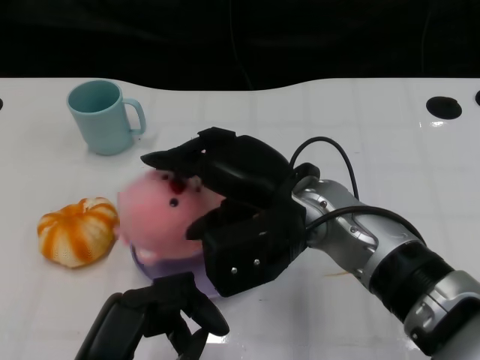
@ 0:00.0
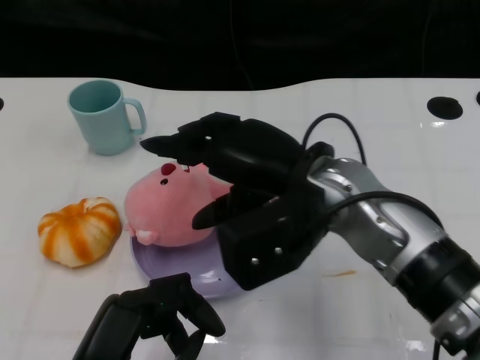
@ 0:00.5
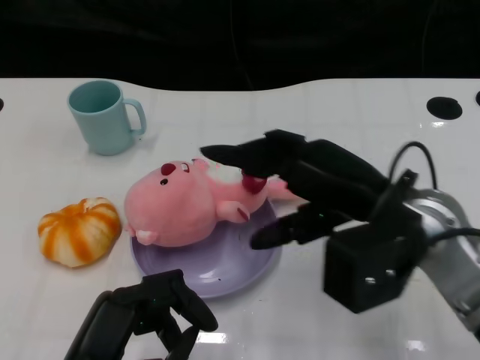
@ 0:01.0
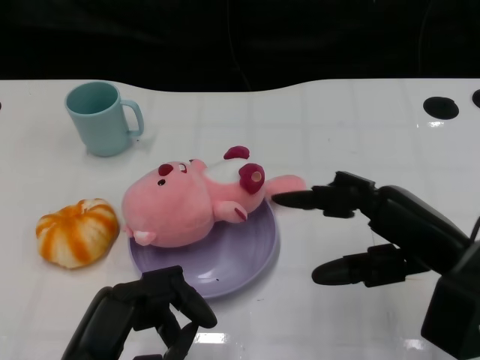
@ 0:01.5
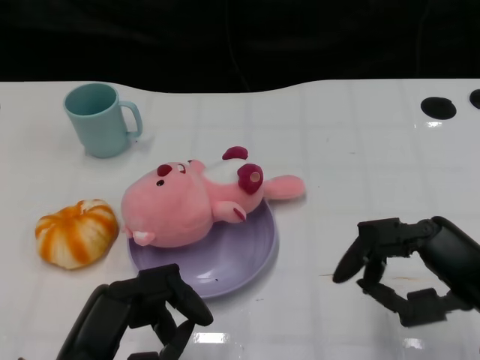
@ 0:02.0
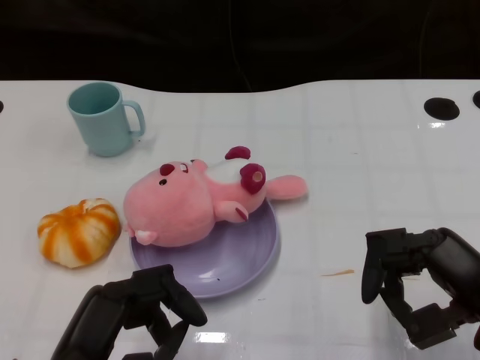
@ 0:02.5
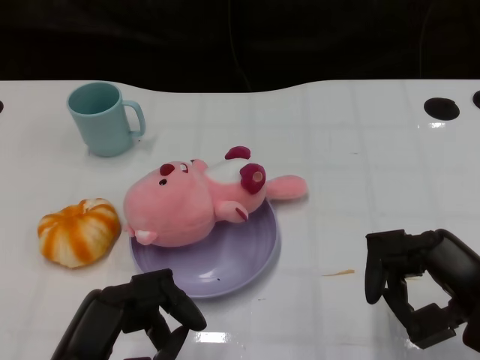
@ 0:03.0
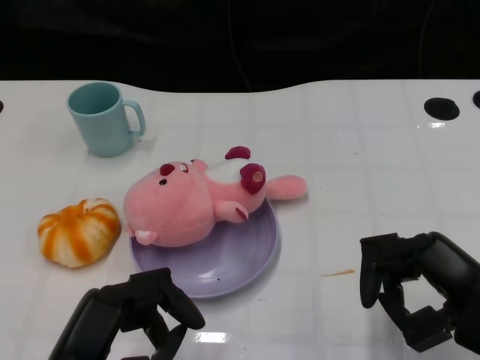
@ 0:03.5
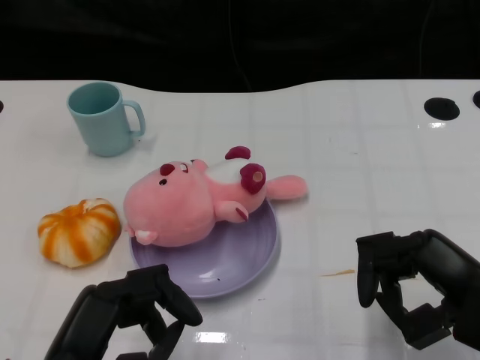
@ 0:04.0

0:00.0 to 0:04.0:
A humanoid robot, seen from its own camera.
Task of the whole recording: Pick up the doll on the other side of the plate and place it into the plate.
0:00.0 to 0:02.0: The right hand heads to the right and backward, covering roughly 20 cm.
0:02.0 to 0:04.0: The hands make only small movements.

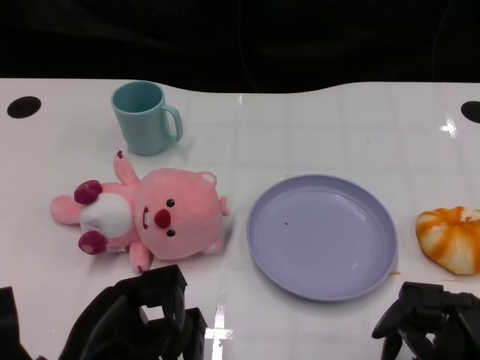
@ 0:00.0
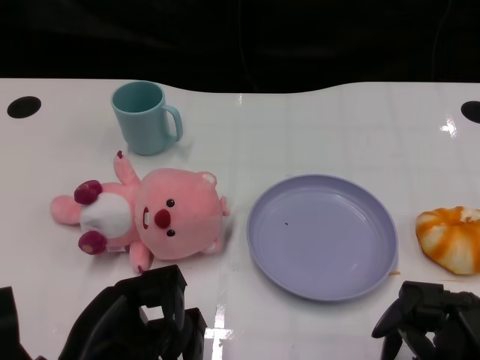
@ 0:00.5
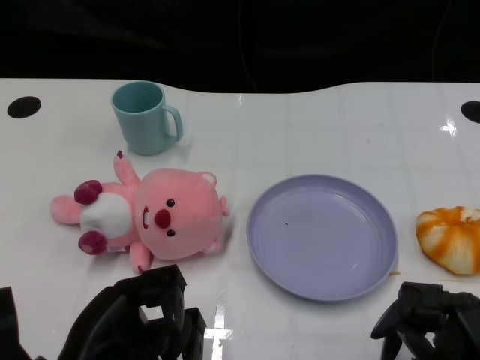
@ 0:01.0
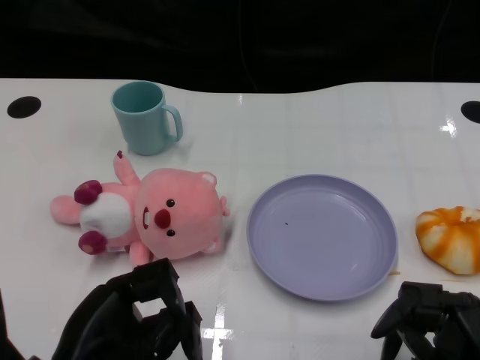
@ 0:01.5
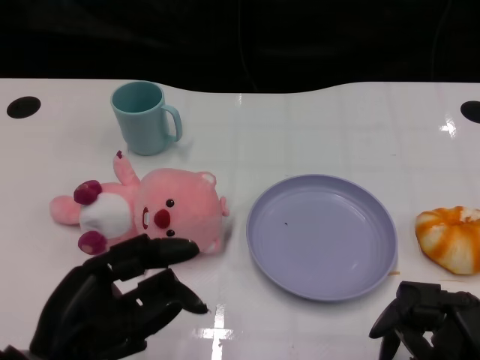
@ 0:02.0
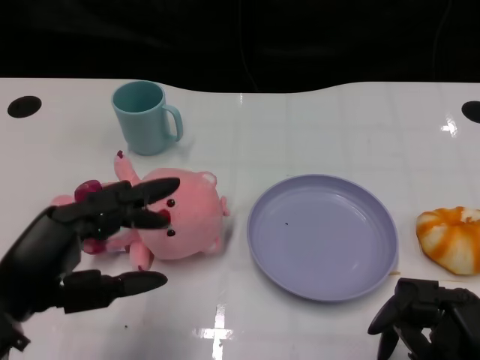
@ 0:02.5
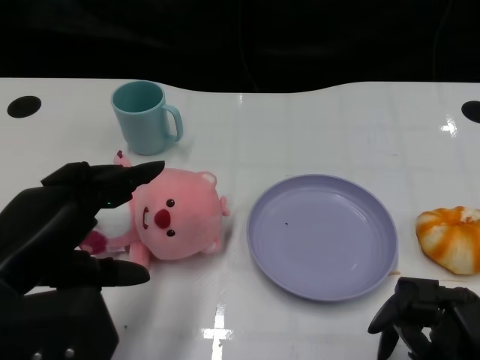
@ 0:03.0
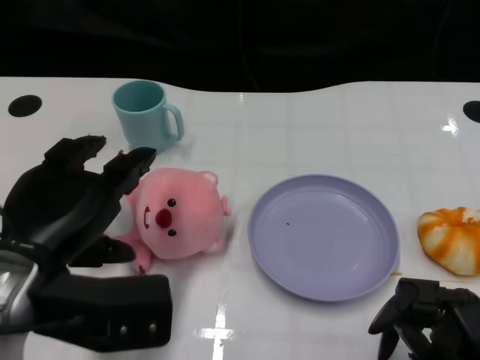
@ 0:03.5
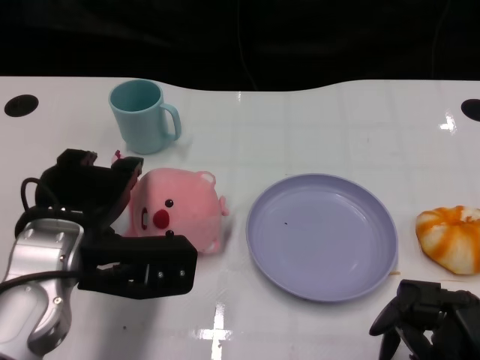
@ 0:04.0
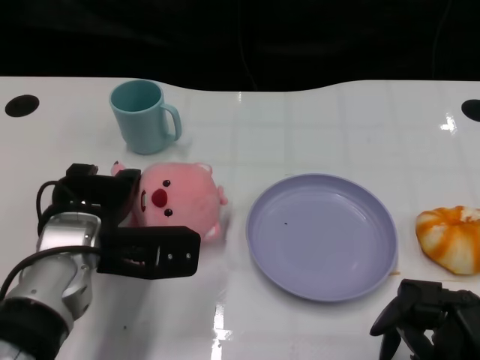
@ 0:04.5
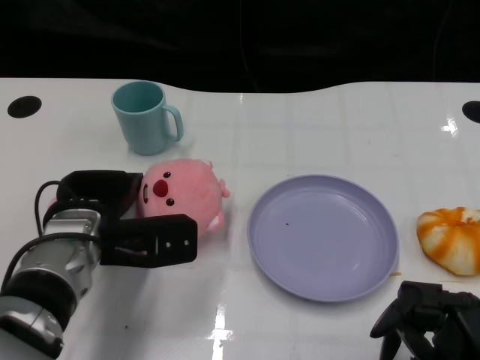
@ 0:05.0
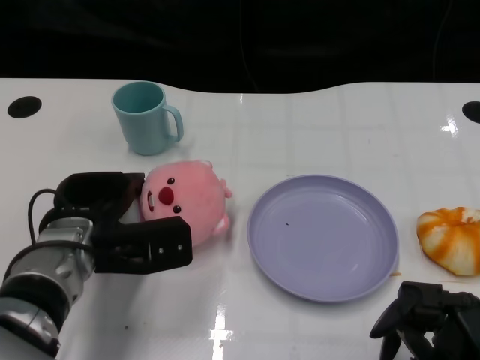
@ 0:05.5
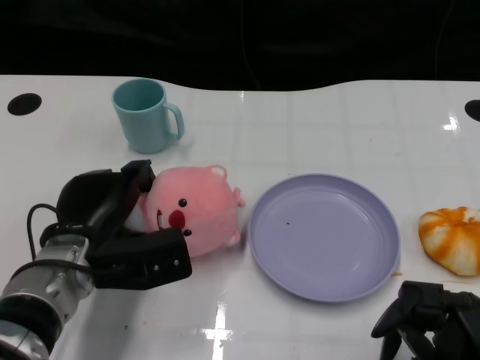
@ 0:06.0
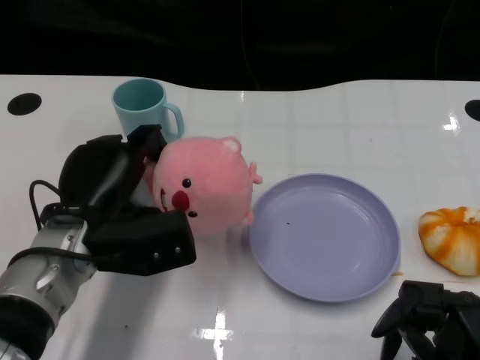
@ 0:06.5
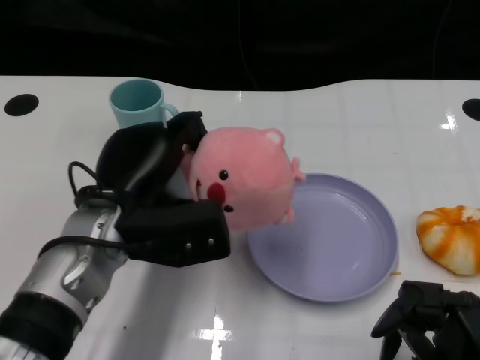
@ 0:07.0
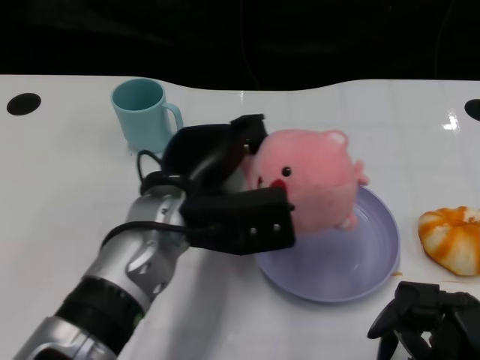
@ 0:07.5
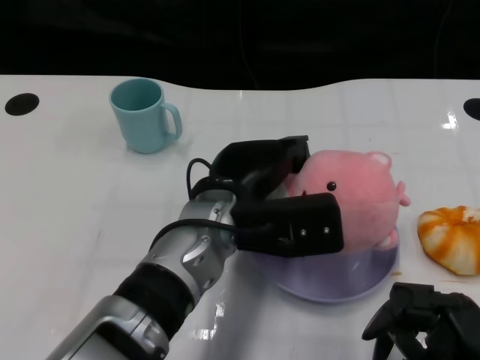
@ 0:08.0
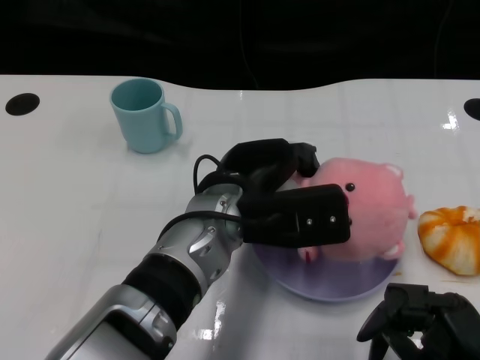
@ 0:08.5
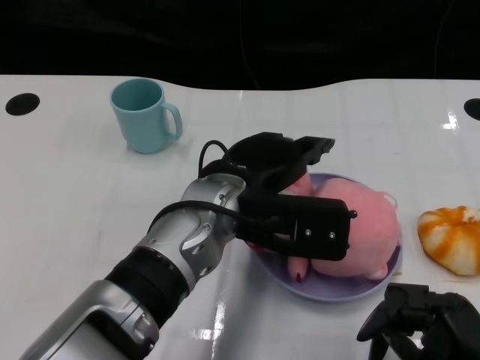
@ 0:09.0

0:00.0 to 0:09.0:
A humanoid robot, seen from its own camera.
Task of the whole recording: Pick up the doll on one side of the plate and place it into the plate.
Step, 0:01.5 to 0:06.0: Grasp the pink doll with the left gripper.
0:02.0 to 0:04.5: The left hand is displaced forward by some 15 cm.
0:07.0 to 0:09.0: The left hand heads to the right, covering roughly 10 cm.

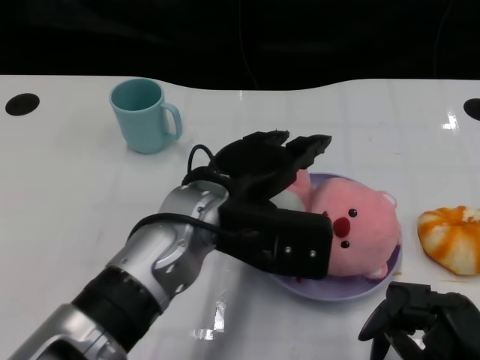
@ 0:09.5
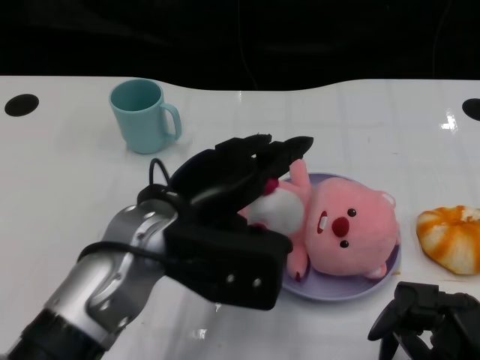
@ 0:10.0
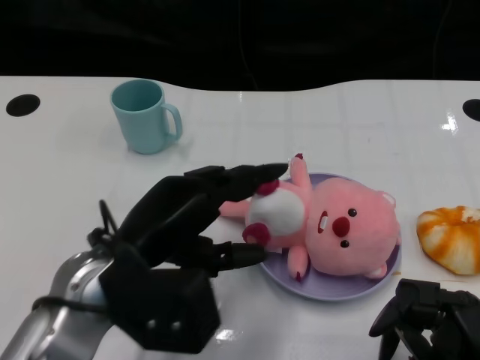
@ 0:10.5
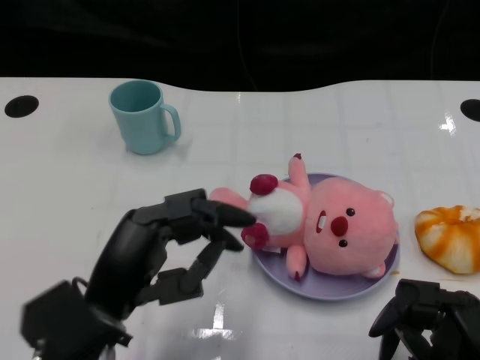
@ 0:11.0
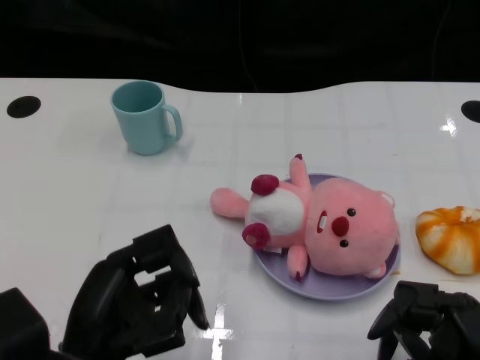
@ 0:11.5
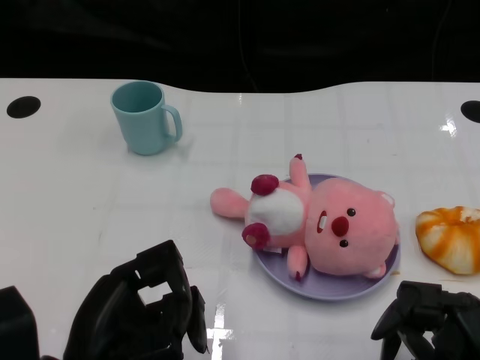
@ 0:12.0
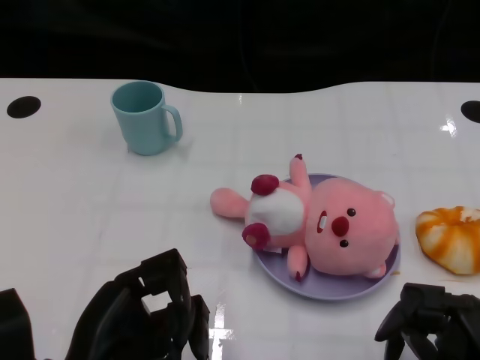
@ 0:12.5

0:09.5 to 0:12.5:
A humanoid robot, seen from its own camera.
Task of the whole recording: Pick up the doll on one side of the plate and place it into the plate.
0:09.5 to 0:11.0: The left hand shifts some 15 cm to the left and backward.
0:11.0 to 0:12.5: The left hand moves roughly 5 cm.

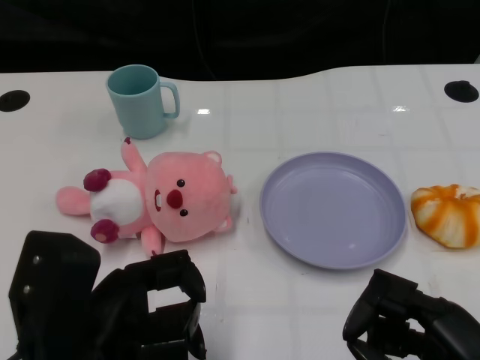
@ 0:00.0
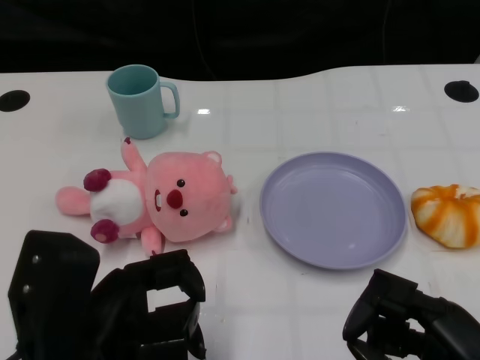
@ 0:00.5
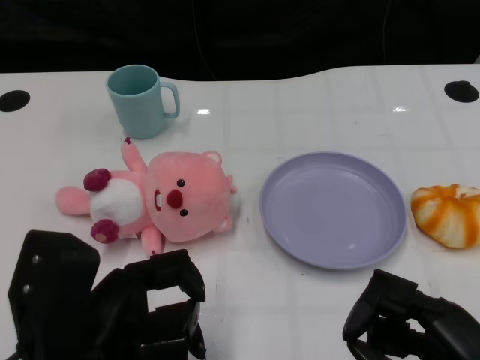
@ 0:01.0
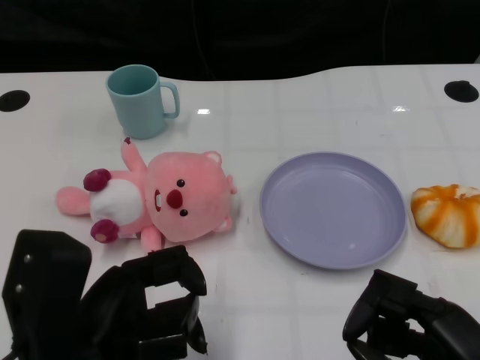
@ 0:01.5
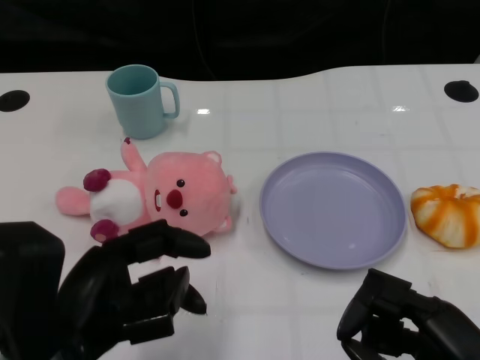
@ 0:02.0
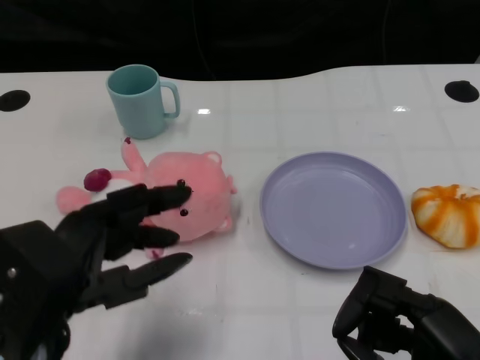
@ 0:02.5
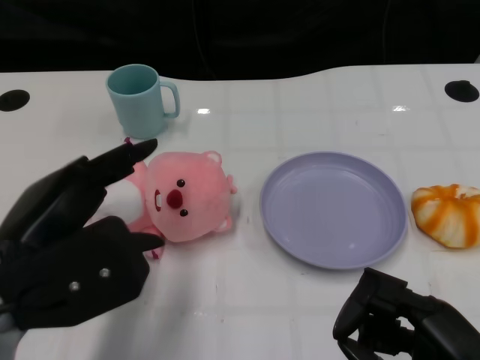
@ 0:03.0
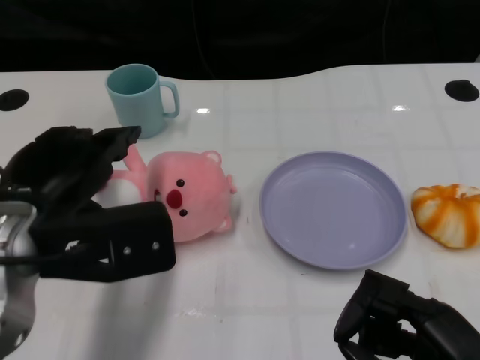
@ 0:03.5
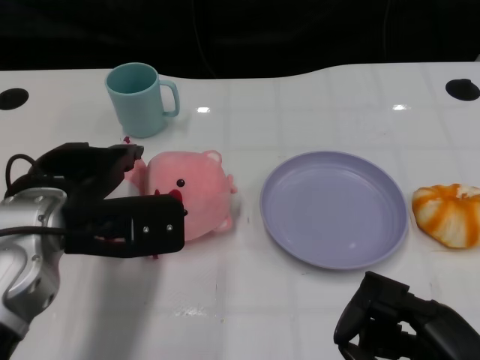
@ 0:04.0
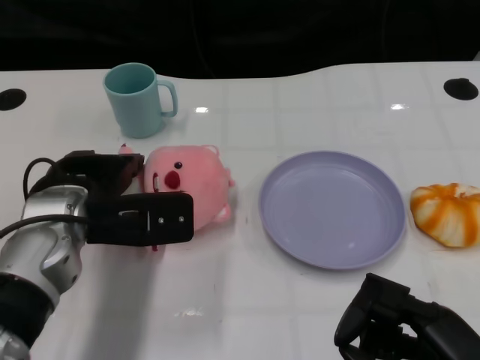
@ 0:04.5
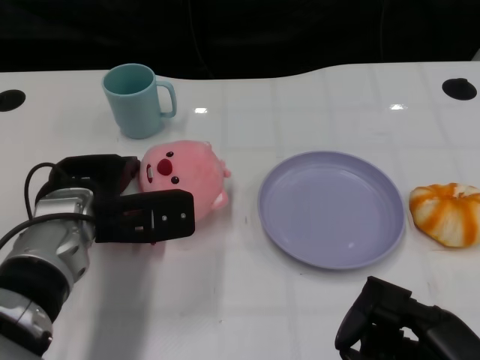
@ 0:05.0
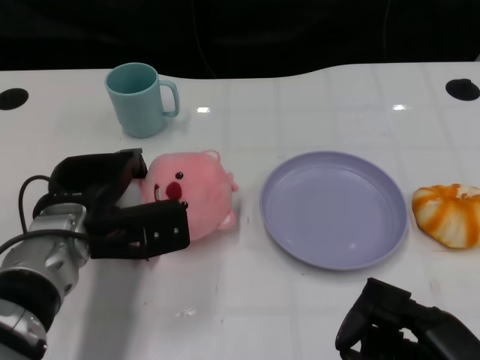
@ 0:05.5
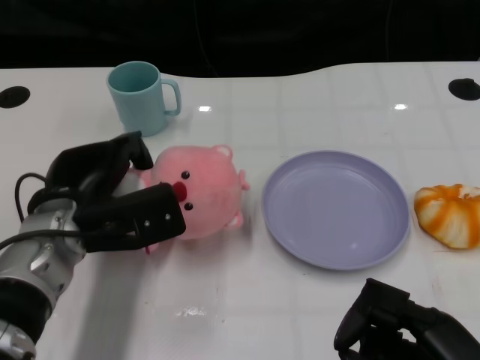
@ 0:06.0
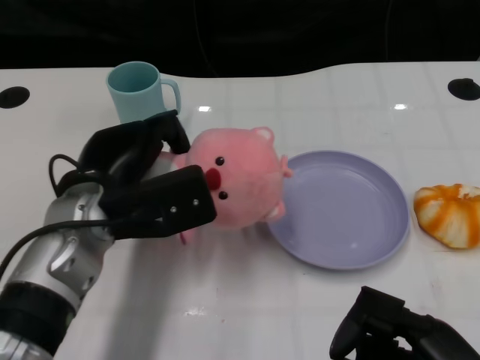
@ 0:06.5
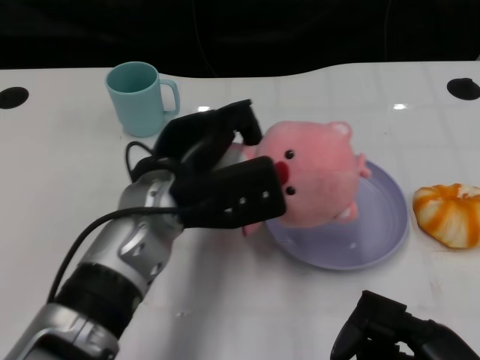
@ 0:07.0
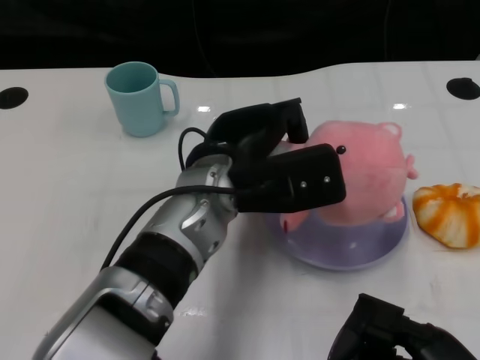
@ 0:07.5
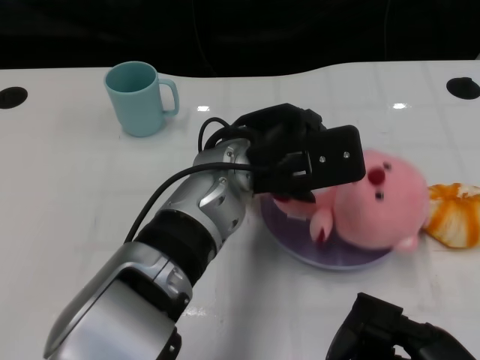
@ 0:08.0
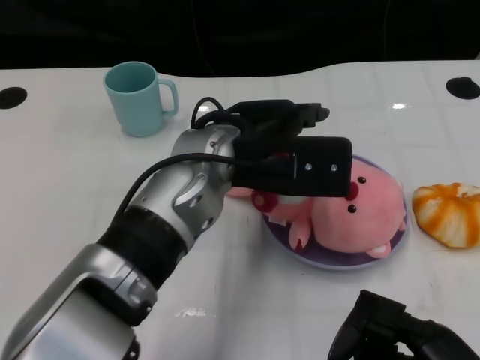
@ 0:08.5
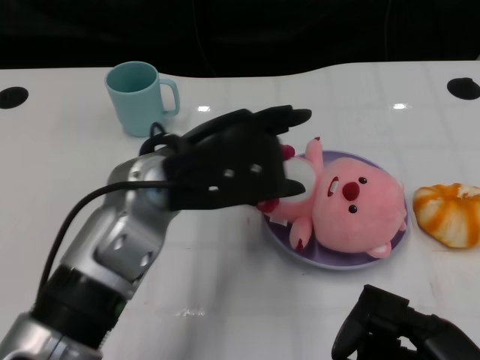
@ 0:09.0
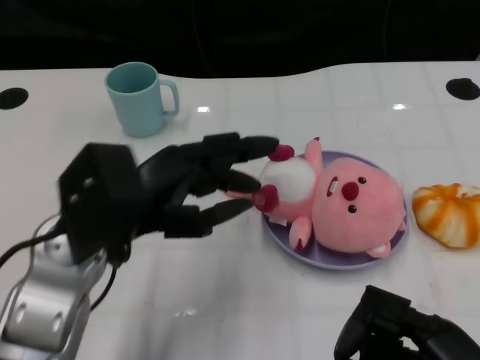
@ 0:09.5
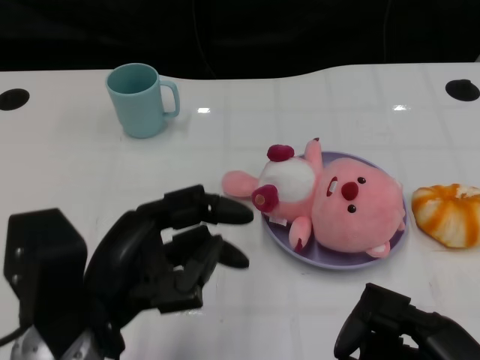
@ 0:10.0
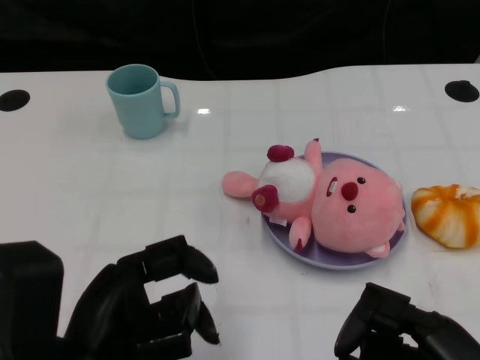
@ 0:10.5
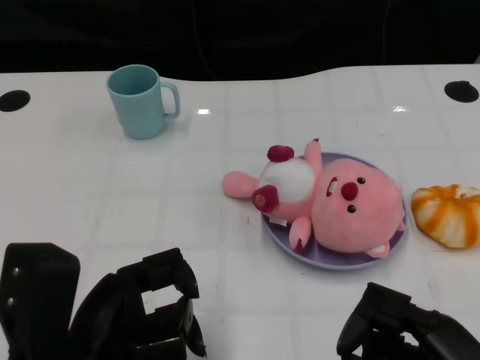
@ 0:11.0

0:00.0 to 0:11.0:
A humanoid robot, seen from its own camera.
Task of the whole recording: Pick up the doll on one side of the plate and place it into the plate.
Step, 0:01.5 to 0:06.0: Grasp the pink doll with the left gripper.
Step, 0:06.5 to 0:08.0: Place the pink doll into the plate with the left gripper.
0:02.0 to 0:03.5: The left hand moves forward, roughly 10 cm.
0:03.5 to 0:05.5: The left hand moves downward and forward, some 10 cm.
0:05.5 to 0:07.5: The left hand travels to the right and upward by roughly 15 cm.
0:07.5 to 0:09.0: The left hand is displaced to the left by roughly 5 cm.
0:09.0 to 0:11.0: The left hand moves backward, to the left and downward, about 20 cm.
